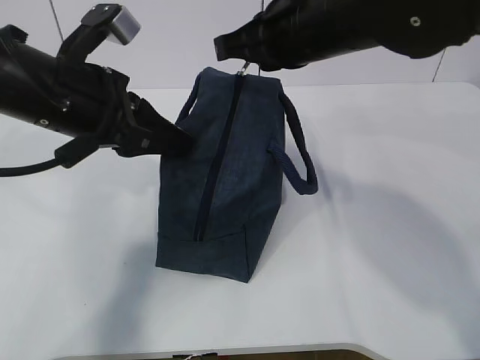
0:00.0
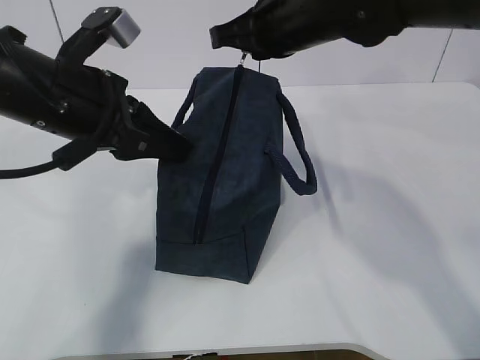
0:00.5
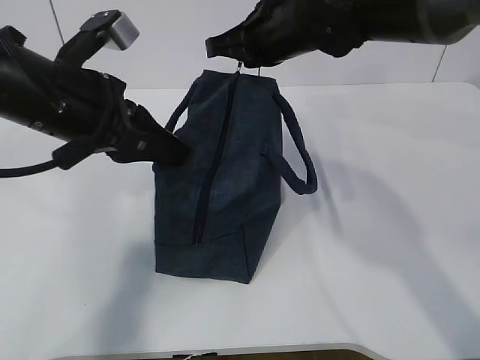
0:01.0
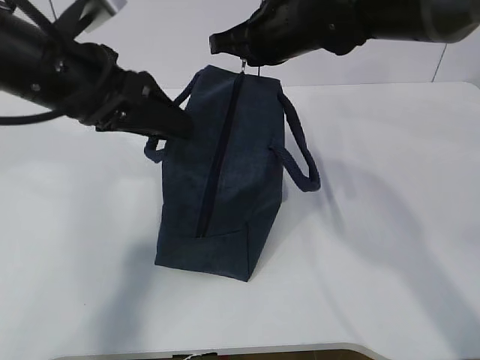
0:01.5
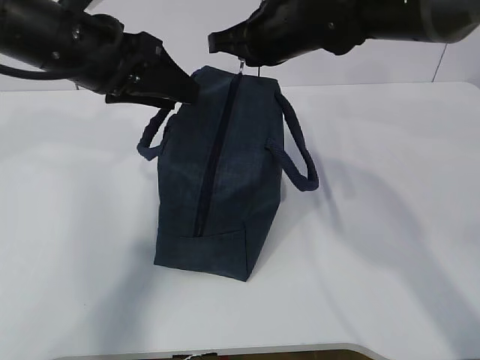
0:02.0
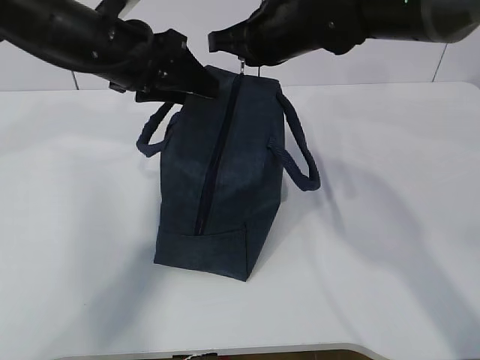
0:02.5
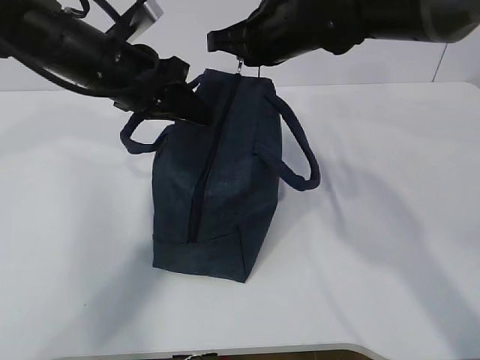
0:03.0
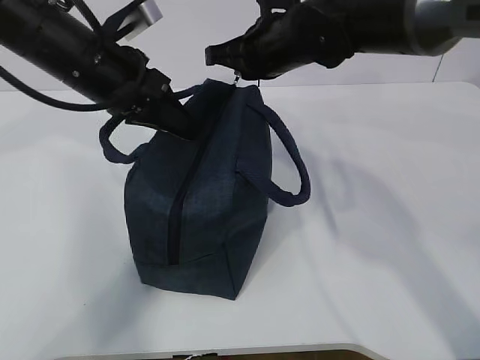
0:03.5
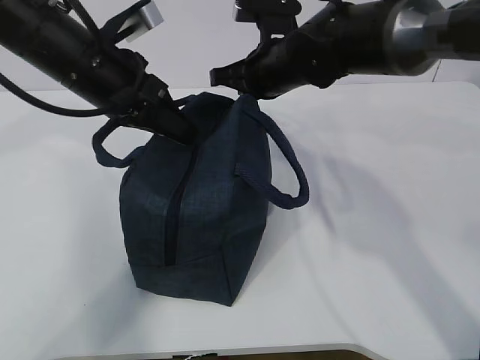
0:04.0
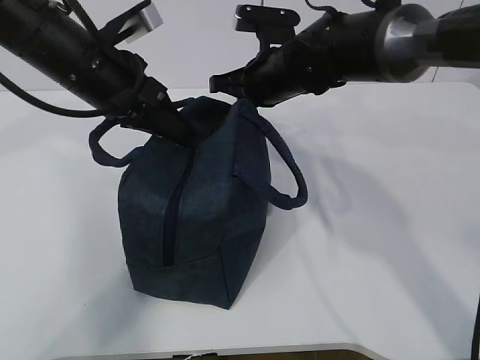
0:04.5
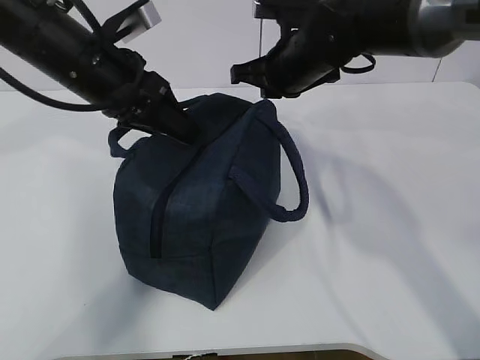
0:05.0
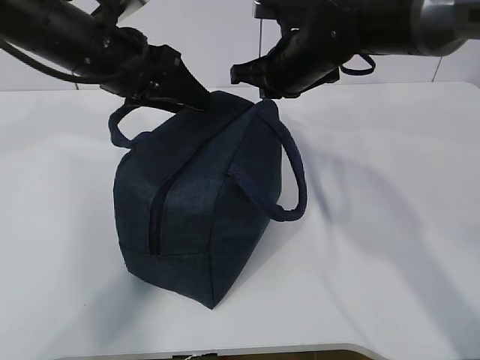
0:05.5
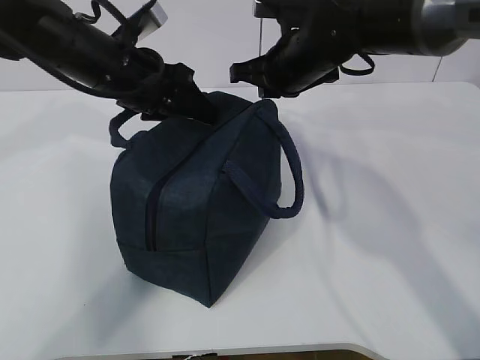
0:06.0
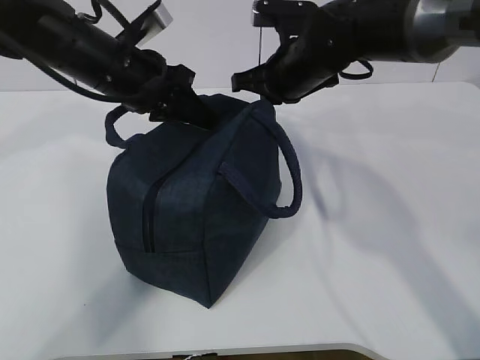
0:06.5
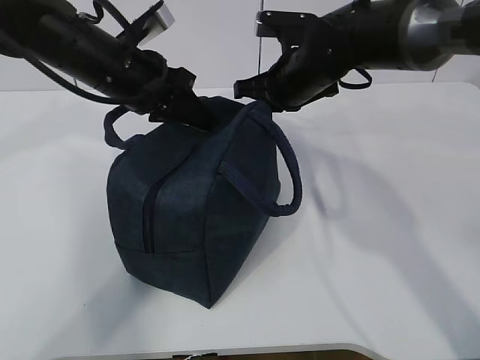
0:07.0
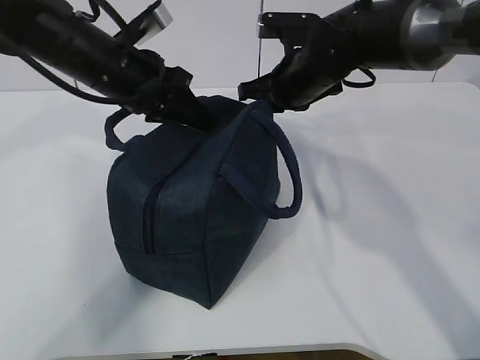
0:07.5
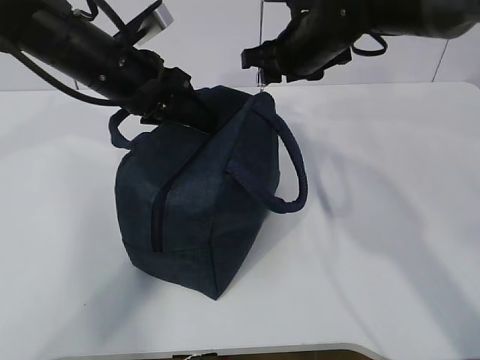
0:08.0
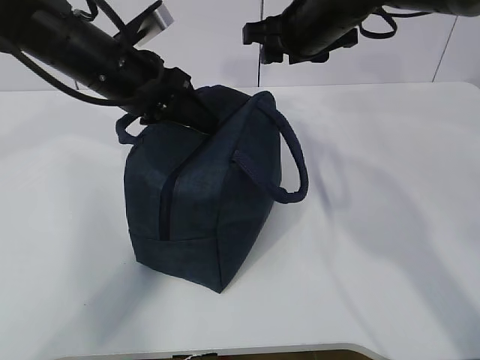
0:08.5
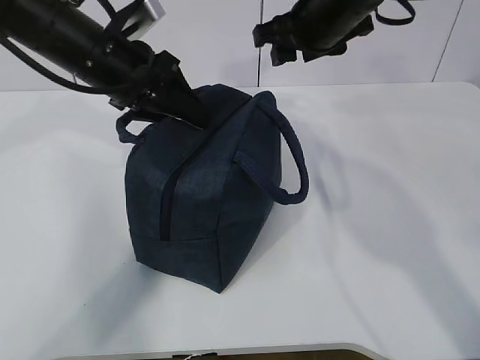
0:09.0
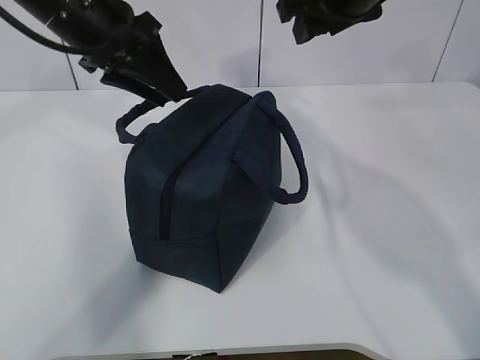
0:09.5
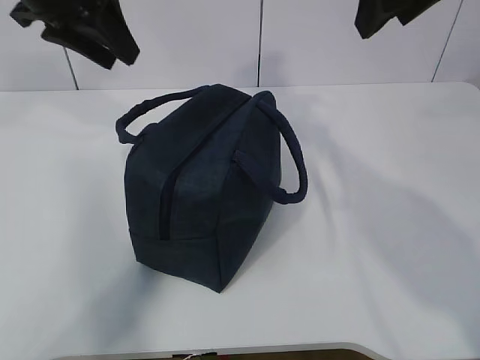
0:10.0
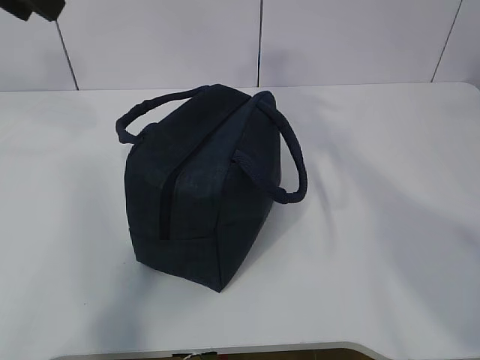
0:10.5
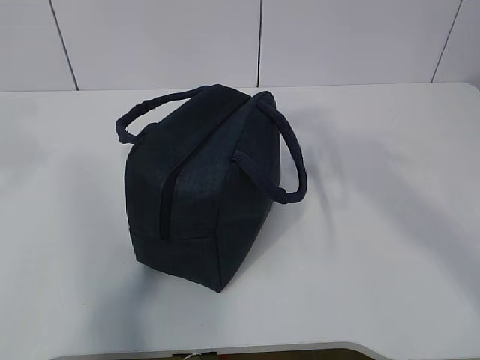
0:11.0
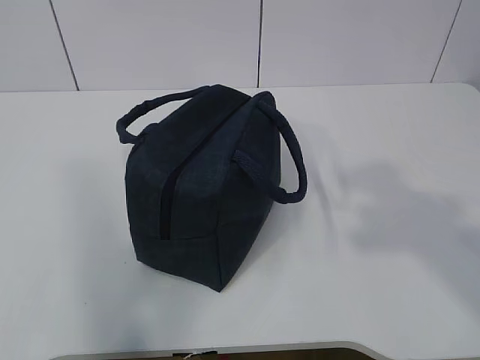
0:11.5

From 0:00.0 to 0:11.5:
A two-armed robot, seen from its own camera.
From 0:00.0 to 0:02.0: The left gripper shifts by approximately 5 cm, and opens its fingers; the right gripper is displaced forward by about 10 cm.
From 0:02.0 to 0:04.0: The left gripper closes its fingers. The right gripper goes roughly 5 cm downward.
From 0:04.0 to 0:06.0: The left gripper opens.
From 0:06.0 to 0:07.5: The left gripper closes.
From 0:07.5 to 0:09.5: The left gripper travels upward by roughly 5 cm, and opens up. Meanwhile the right gripper goes some 15 cm upward and backward, and opens.
From 0:09.5 to 0:11.5: The left gripper travels backward, upward and to the left by roughly 35 cm. The right gripper moves backward, roughly 35 cm.

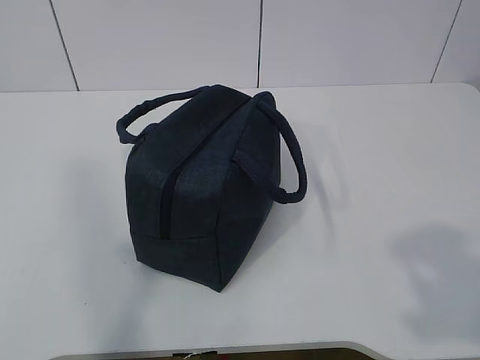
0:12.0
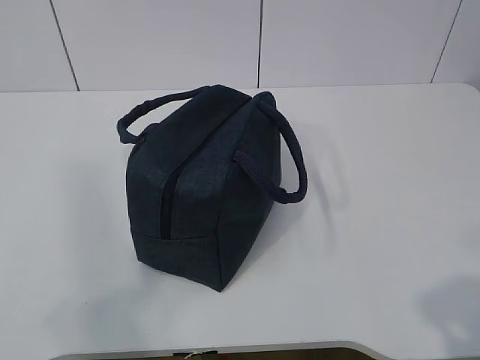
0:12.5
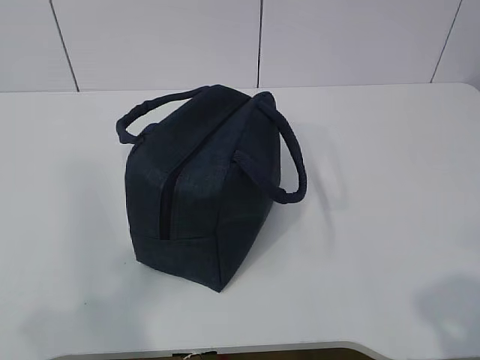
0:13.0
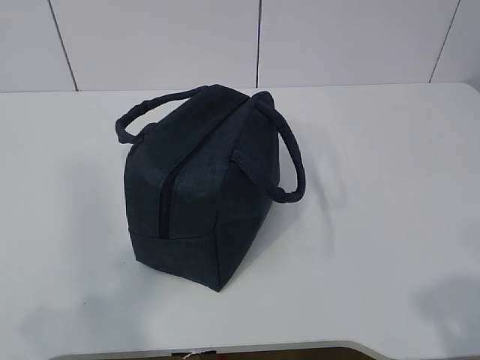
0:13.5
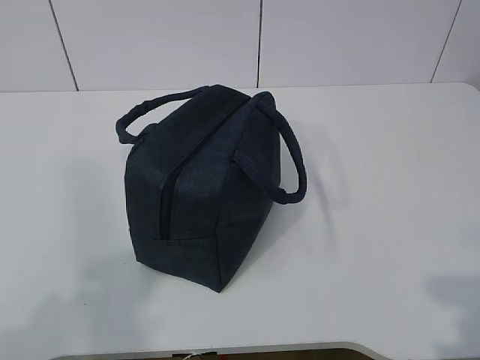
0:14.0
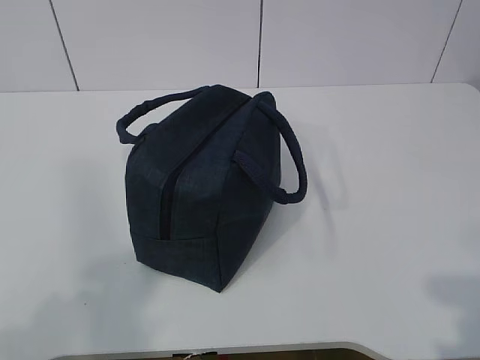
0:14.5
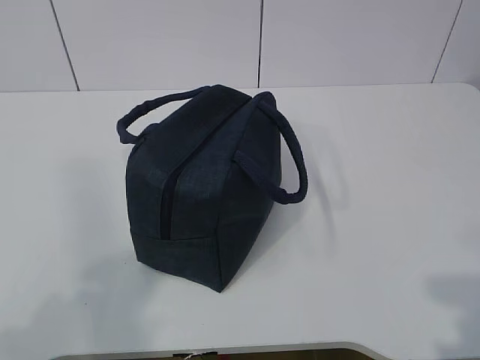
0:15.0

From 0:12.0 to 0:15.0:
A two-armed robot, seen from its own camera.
From 0:12.0 to 0:13.5: The left gripper goes some 15 cm downward. The right gripper goes about 10 cm downward.

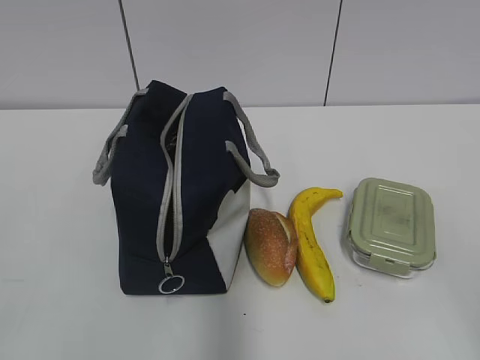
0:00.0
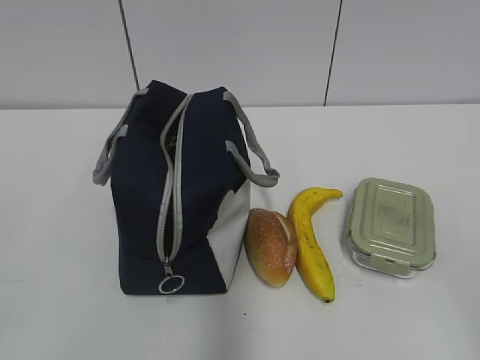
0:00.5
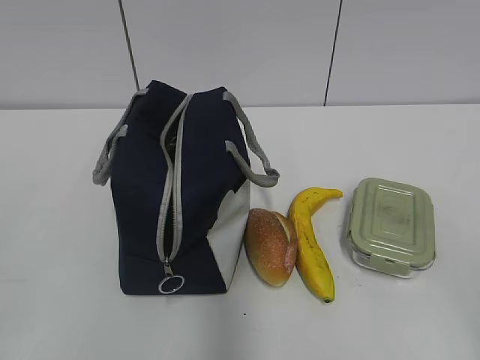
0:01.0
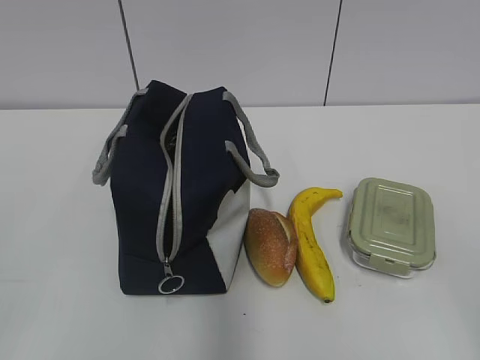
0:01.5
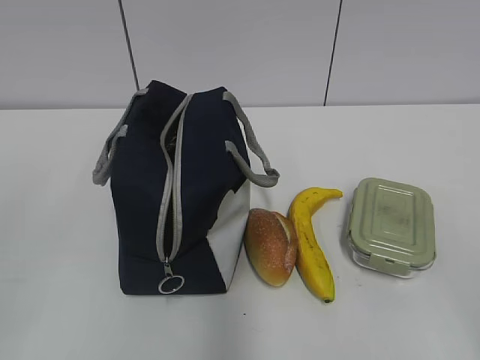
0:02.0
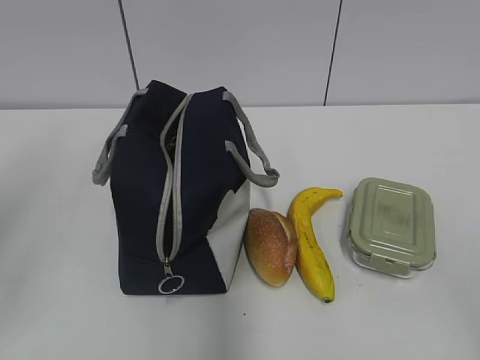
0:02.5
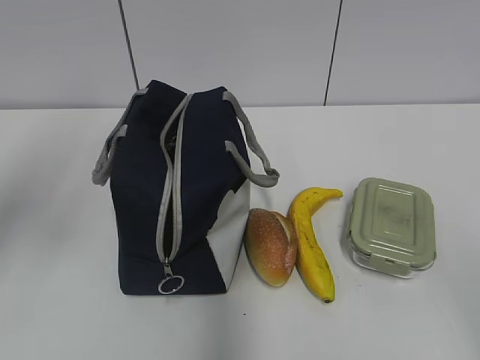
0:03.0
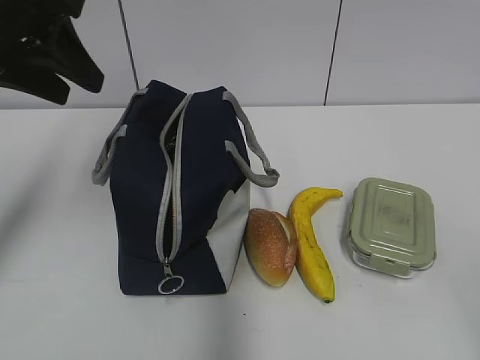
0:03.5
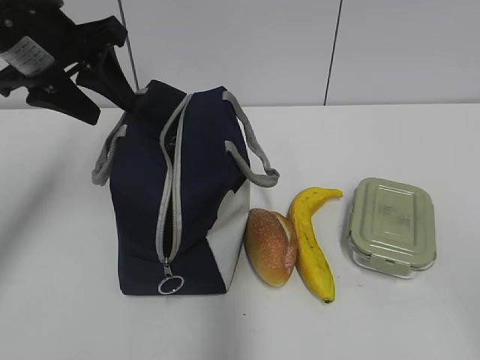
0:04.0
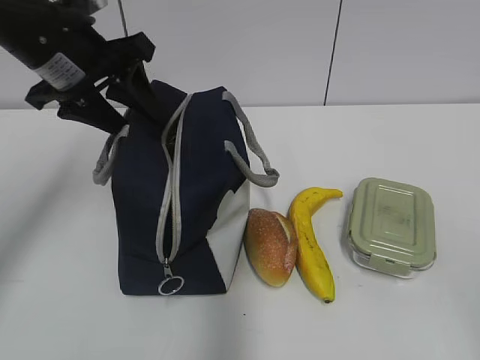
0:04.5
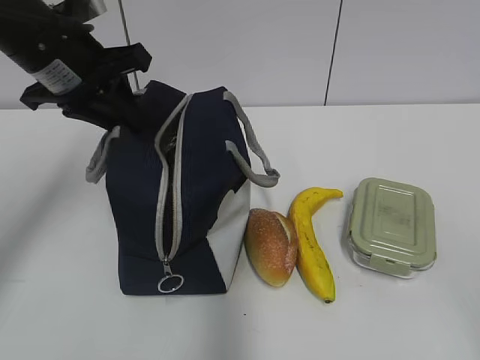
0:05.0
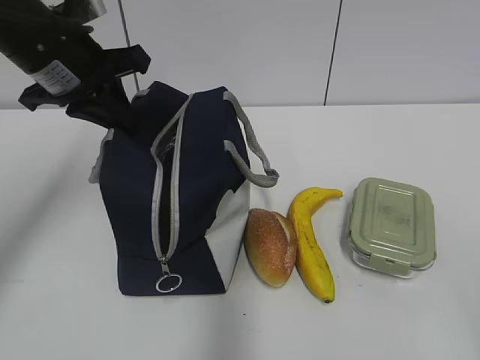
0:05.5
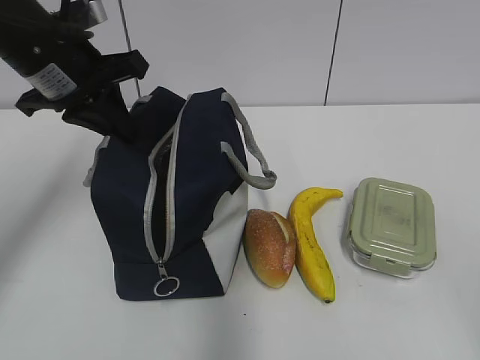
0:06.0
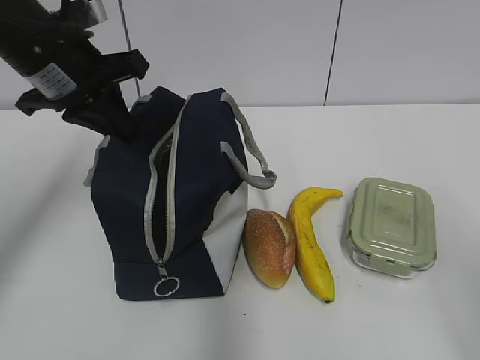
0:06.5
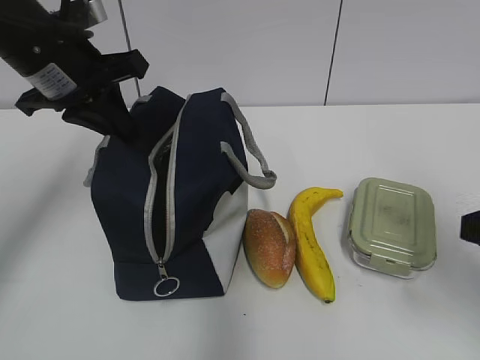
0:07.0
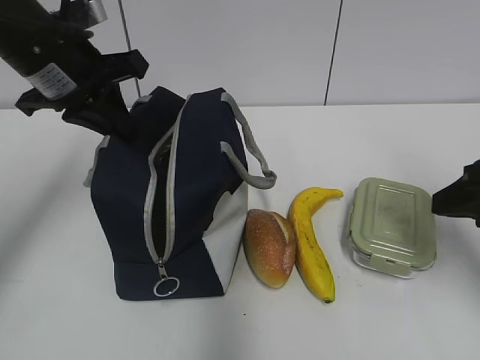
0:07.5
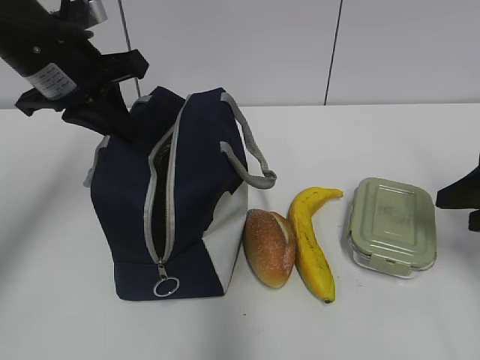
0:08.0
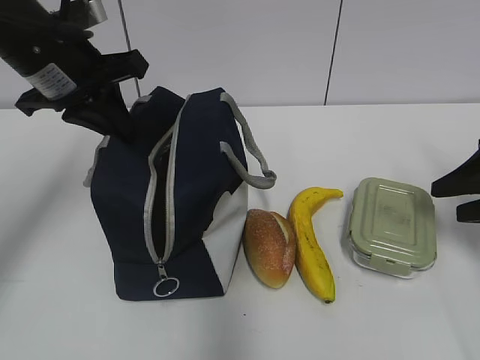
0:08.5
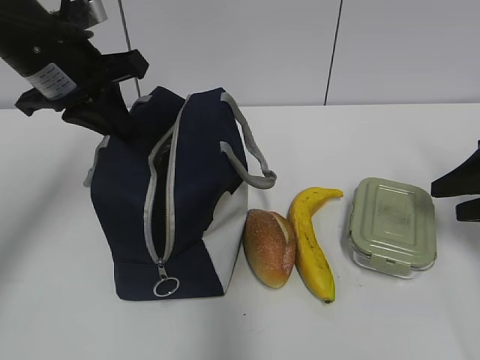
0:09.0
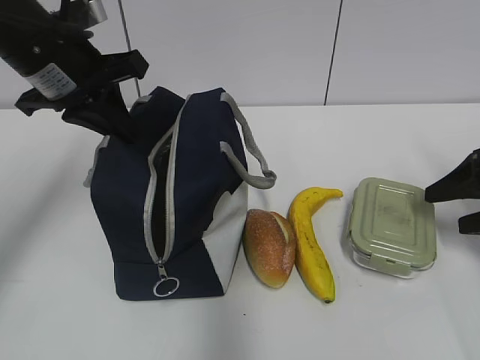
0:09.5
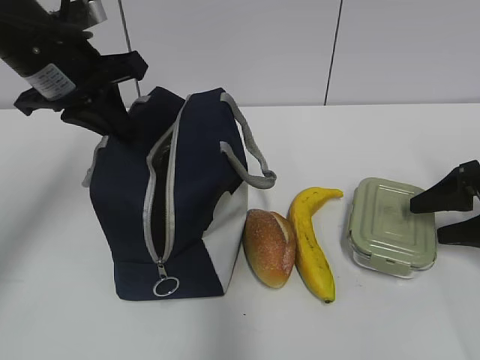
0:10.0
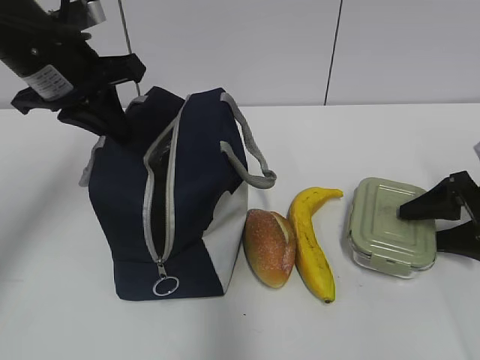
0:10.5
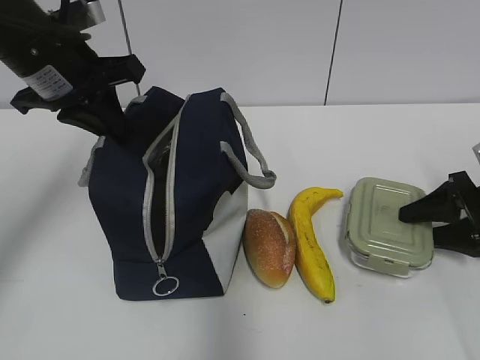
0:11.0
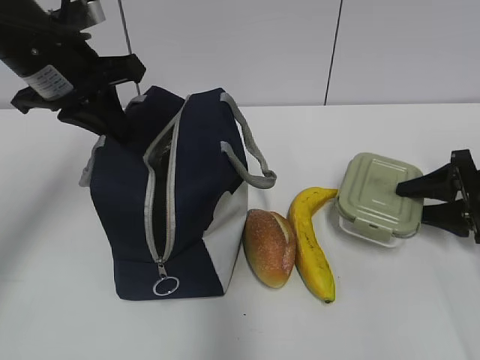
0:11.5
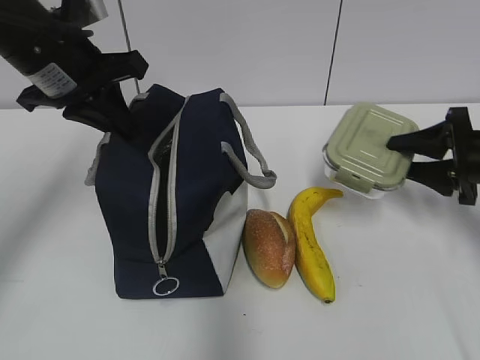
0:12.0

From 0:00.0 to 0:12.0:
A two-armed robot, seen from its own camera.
From 0:02.0 to 0:04.0: The left gripper travels forward by about 30 cm, and opens.
From 0:04.0 to 0:06.0: The left gripper closes its fingers.
From 0:06.0 to 0:08.0: The right gripper heads forward, covering approximately 25 cm.
From 0:08.0 to 0:10.0: The right gripper moves downward and forward, roughly 10 cm.
From 0:10.0 to 0:12.0: The right gripper shifts by some 5 cm, and closes.
